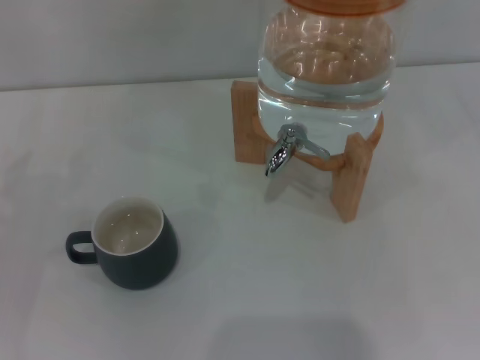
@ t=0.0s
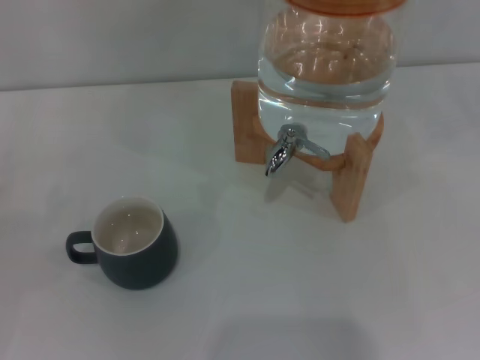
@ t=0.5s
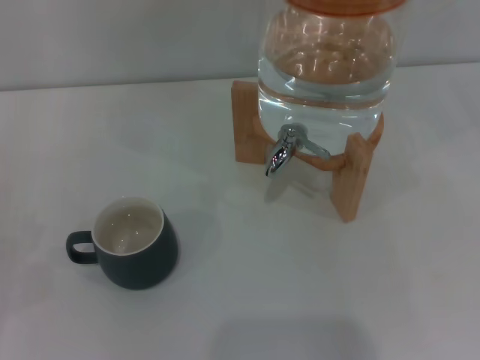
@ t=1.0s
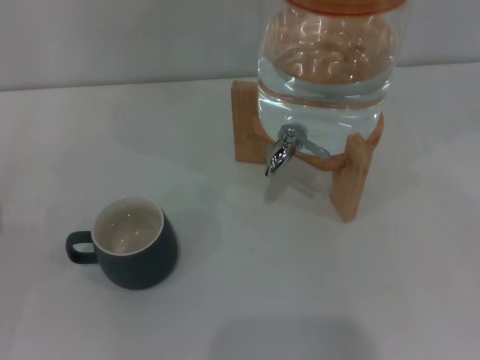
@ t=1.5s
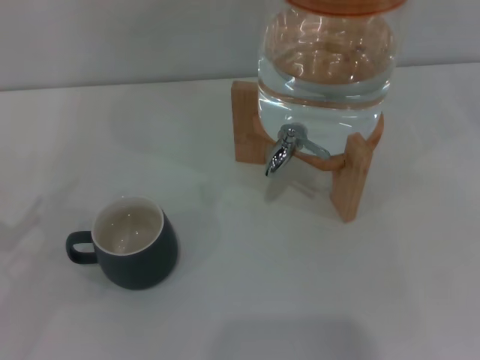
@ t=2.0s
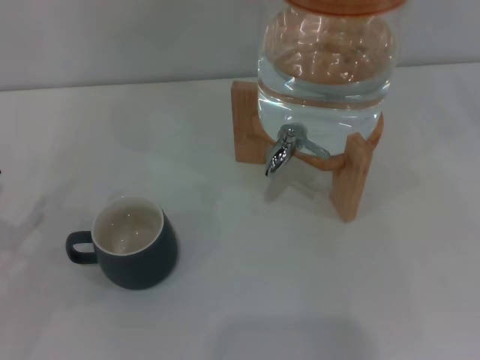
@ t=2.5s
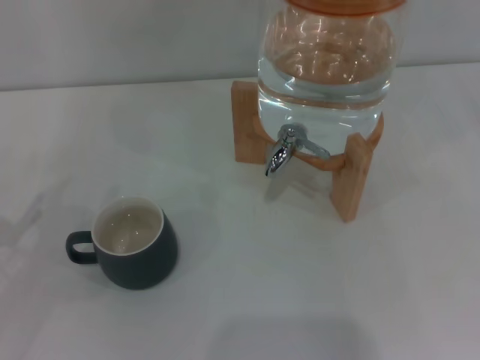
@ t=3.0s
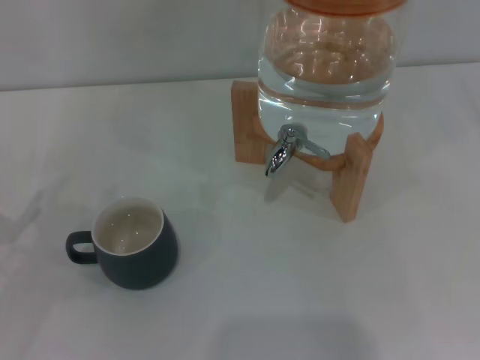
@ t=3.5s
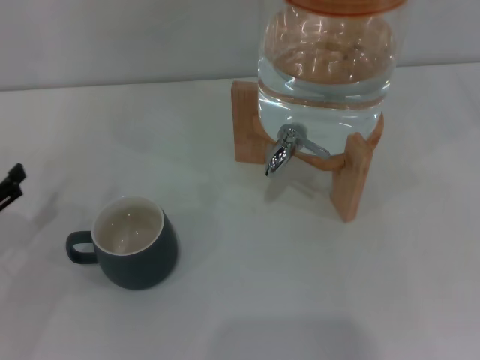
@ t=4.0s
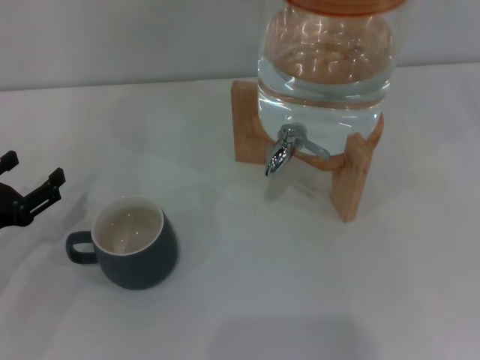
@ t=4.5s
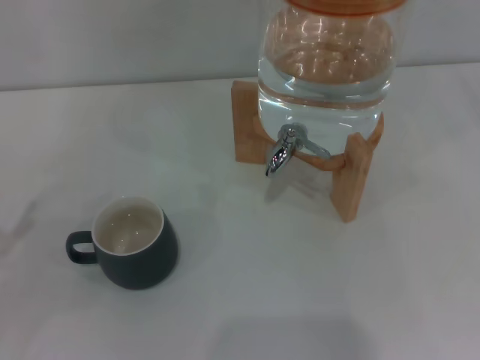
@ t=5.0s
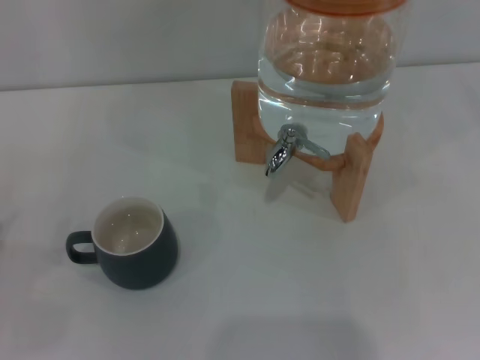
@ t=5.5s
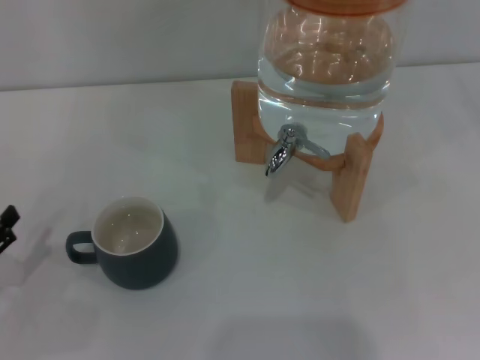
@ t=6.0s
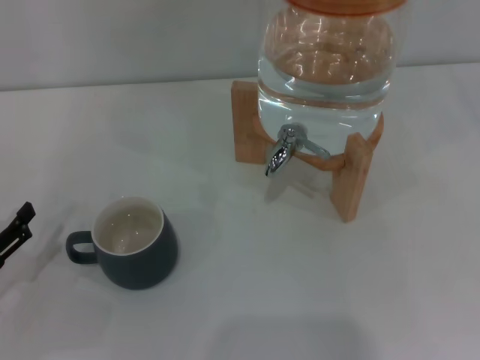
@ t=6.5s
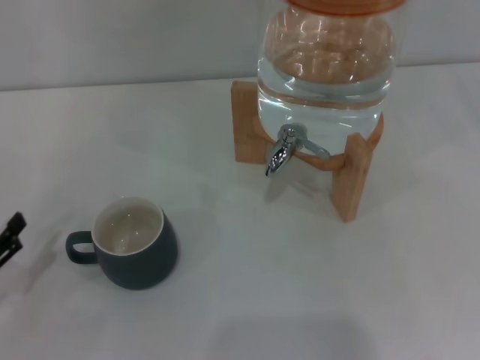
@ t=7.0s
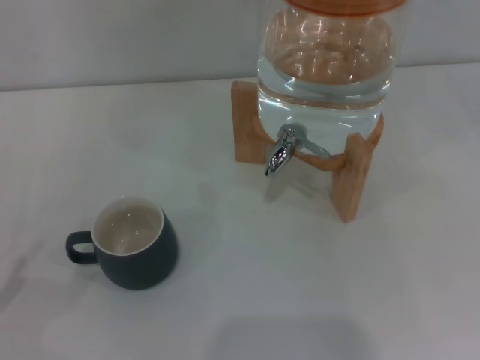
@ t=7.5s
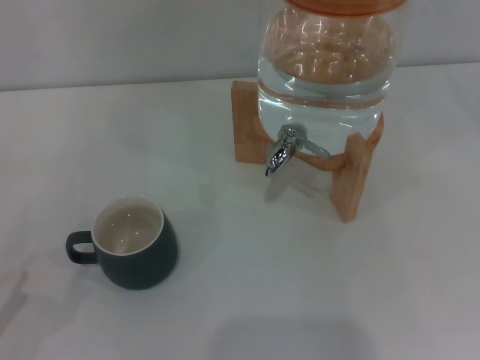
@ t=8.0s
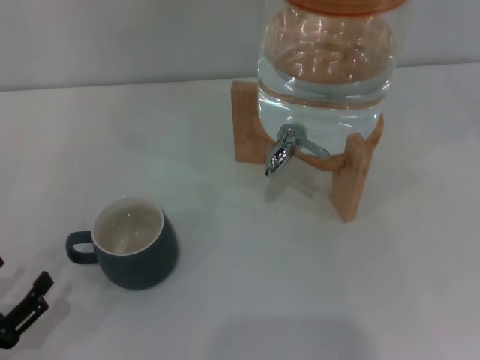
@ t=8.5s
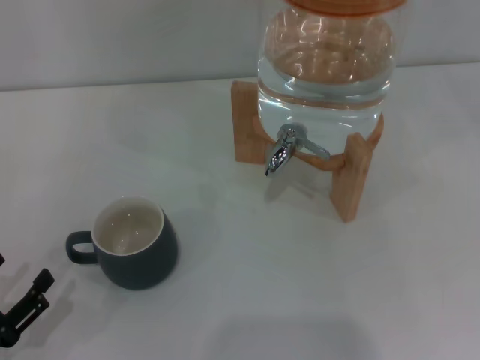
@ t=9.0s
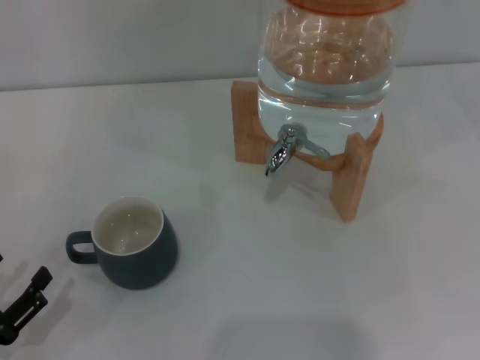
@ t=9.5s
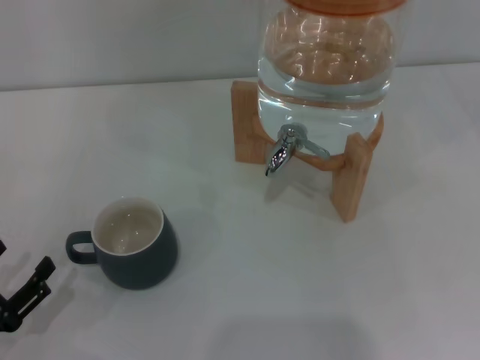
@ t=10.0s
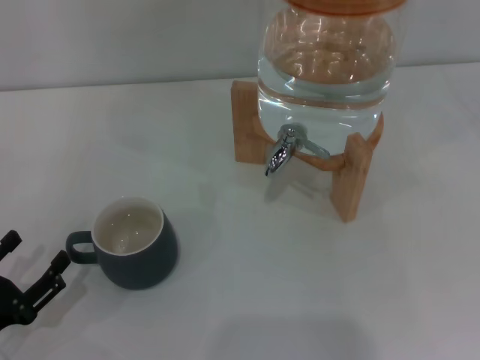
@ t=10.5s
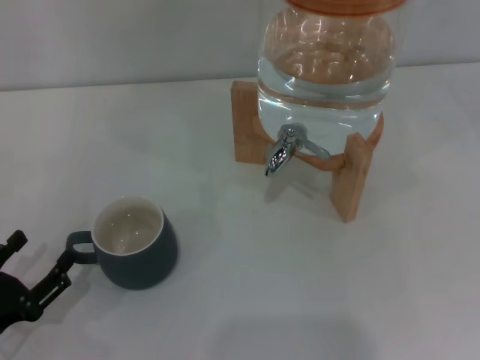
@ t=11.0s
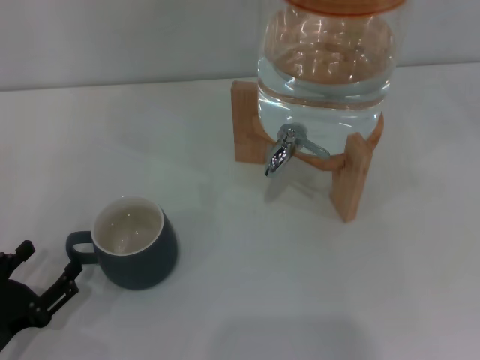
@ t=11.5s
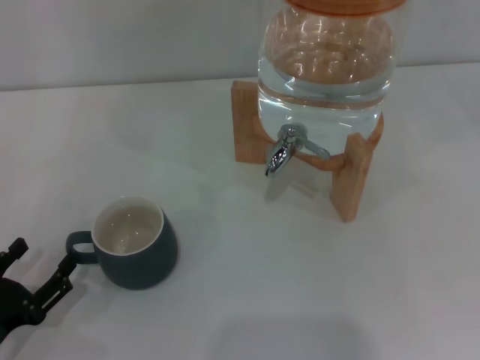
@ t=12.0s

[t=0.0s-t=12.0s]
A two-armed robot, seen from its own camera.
Task of the whole recording: the left gripper pick up the black cup and place it horizontally under the faucet, the right gripper turn on the faucet to fill the cup, and then turn off the faucet.
t=4.0s to t=6.0s: The left gripper goes roughly 5 cm backward.
t=8.0s to t=10.0s: The grippers make only small movements.
t=10.0s to t=12.0s: The grippers move only a little.

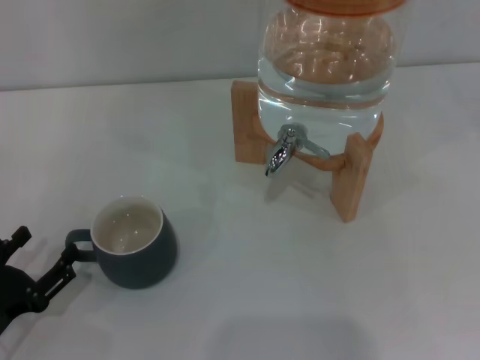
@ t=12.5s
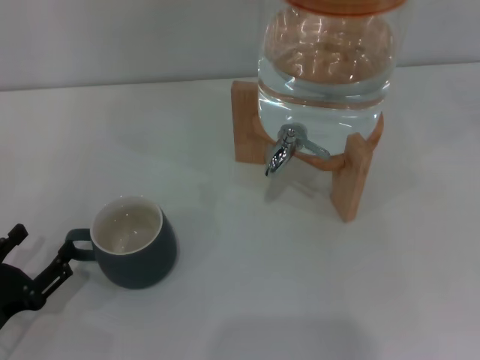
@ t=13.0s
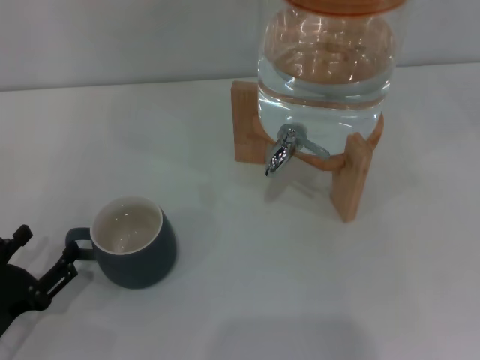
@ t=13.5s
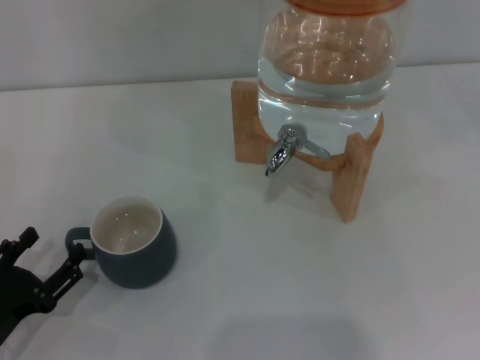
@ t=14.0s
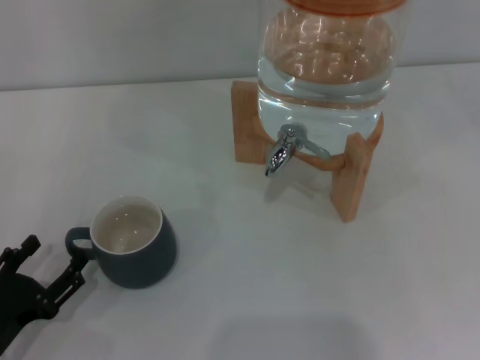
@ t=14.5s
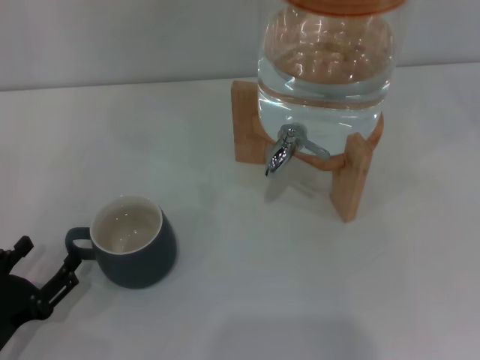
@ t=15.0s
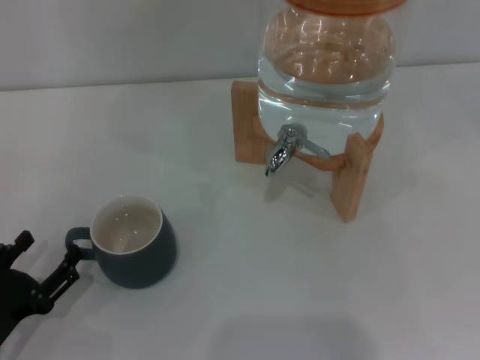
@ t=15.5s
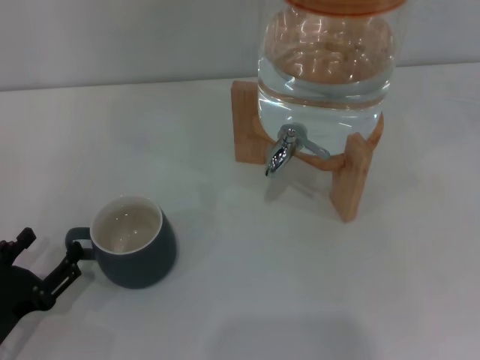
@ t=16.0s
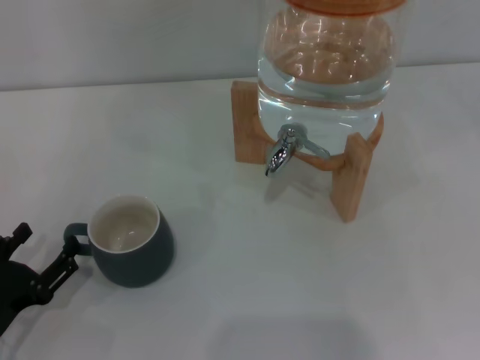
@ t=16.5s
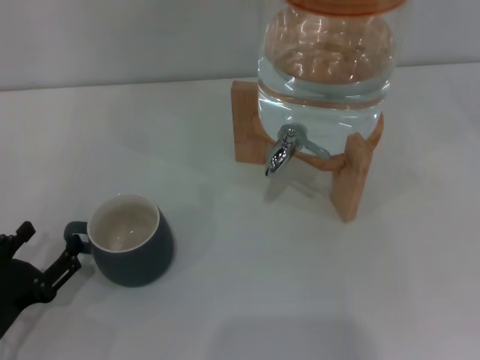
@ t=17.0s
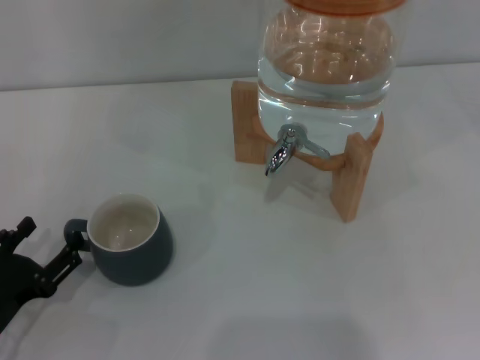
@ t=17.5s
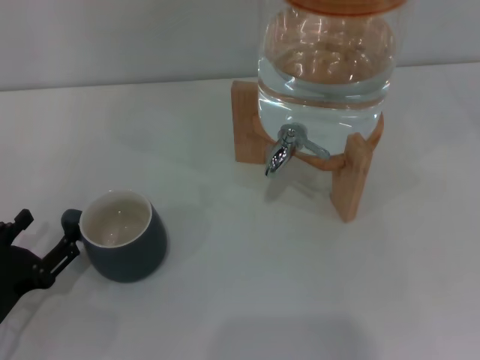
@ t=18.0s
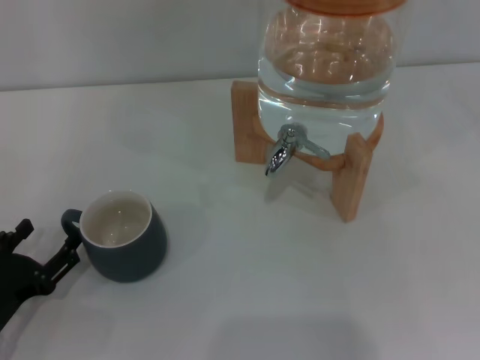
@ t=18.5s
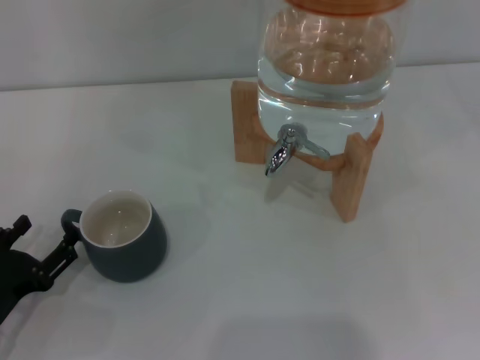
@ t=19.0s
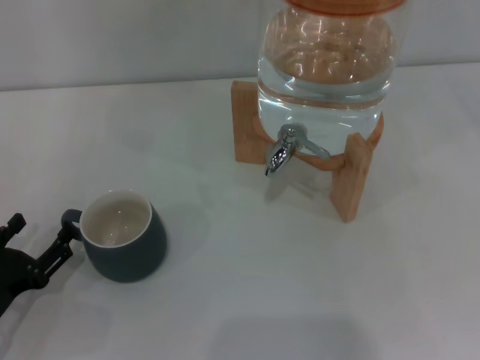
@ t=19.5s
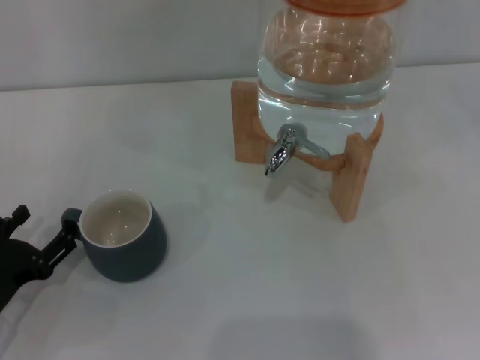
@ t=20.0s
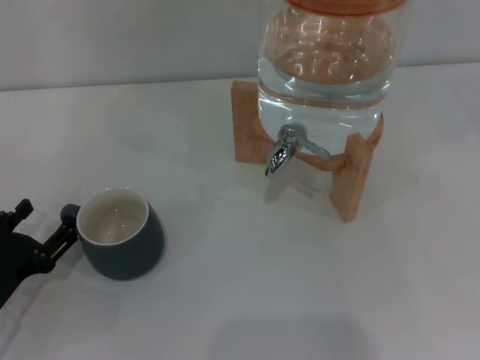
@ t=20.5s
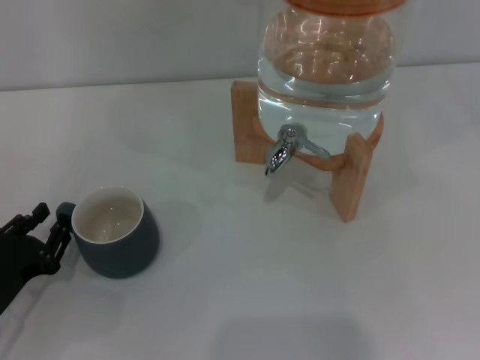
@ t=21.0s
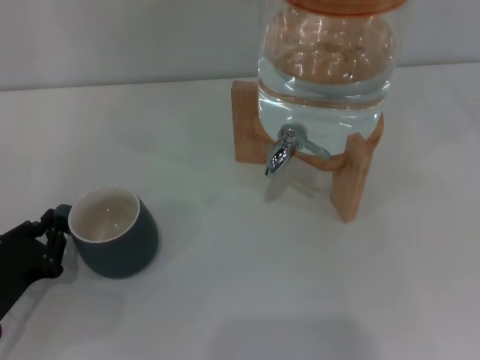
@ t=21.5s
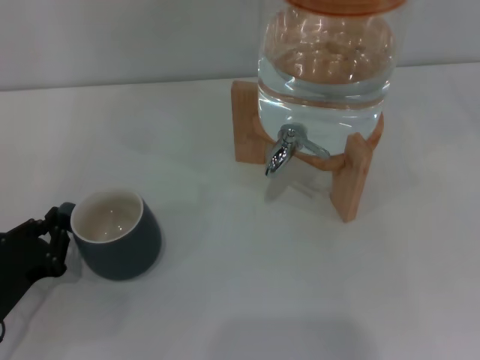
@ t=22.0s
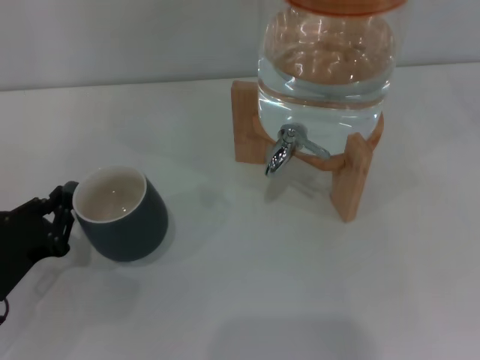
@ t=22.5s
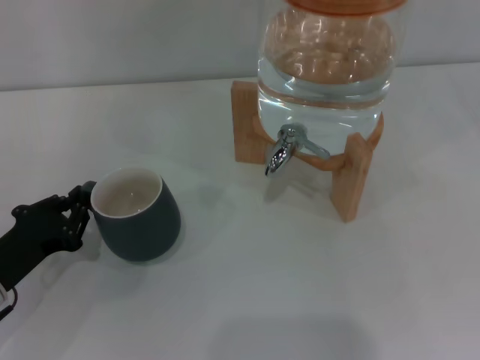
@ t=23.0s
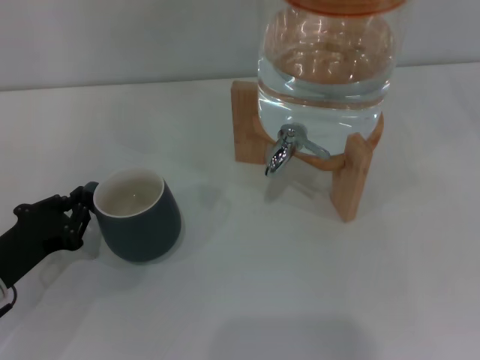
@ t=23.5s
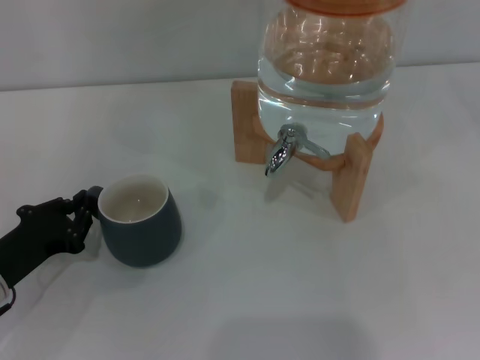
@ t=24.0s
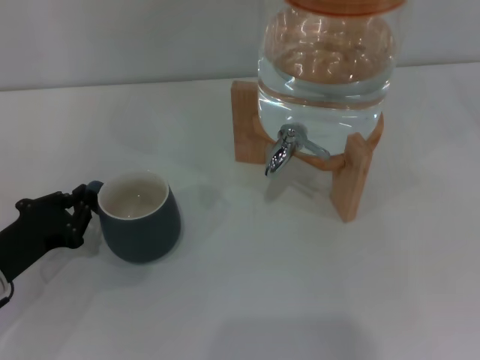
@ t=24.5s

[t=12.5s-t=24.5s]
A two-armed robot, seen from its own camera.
Task of the whole recording: the left gripper pick up the black cup and place it horizontally under the faucet, the right gripper turn on the faucet to fill the cup, and then turn off the faucet.
t=12.5s to t=16.5s: The two grippers keep their place.
t=16.5s to t=20.5s: There are only small adjustments of the grippers.
t=20.5s to t=22.5s: The left gripper closes its fingers.
t=22.5s to t=24.5s: The grippers move only a little.

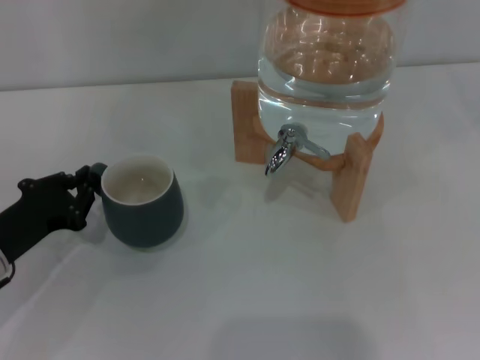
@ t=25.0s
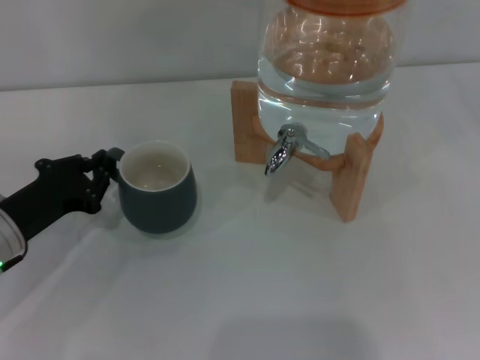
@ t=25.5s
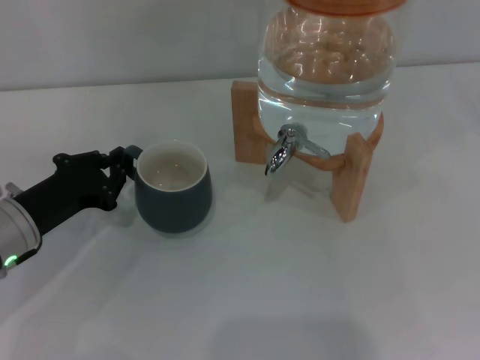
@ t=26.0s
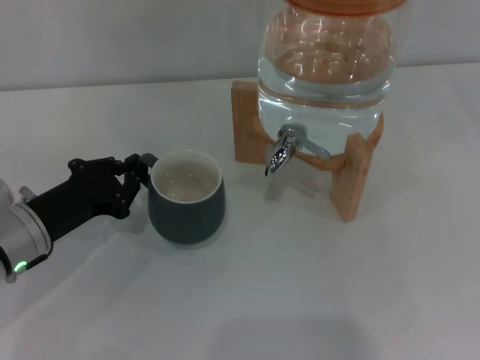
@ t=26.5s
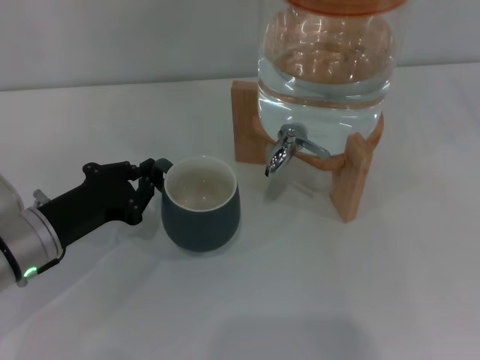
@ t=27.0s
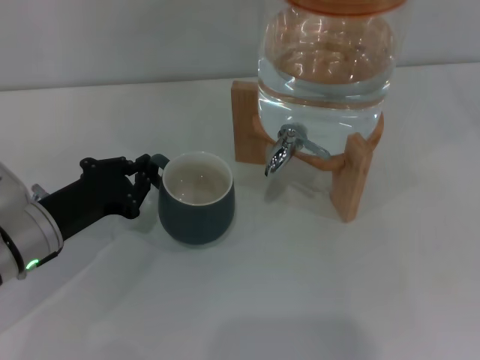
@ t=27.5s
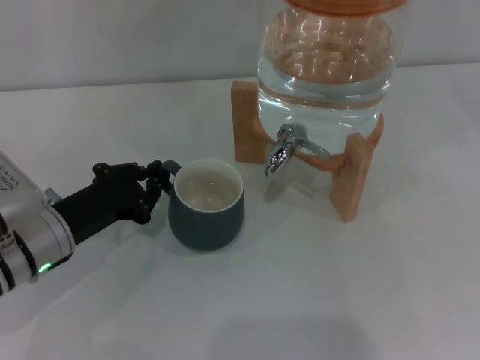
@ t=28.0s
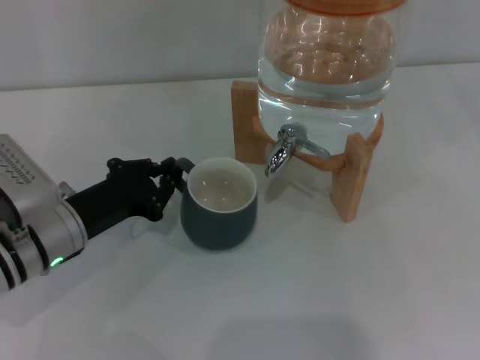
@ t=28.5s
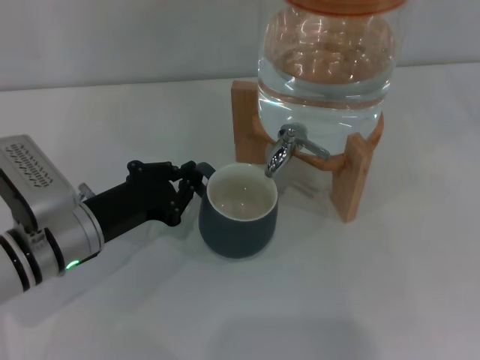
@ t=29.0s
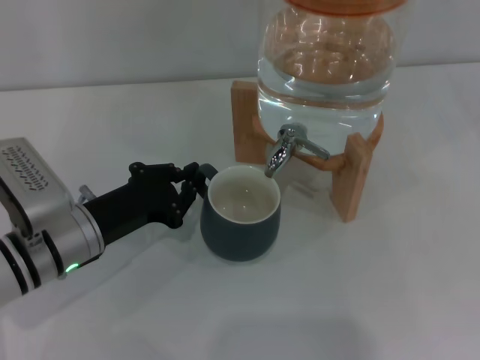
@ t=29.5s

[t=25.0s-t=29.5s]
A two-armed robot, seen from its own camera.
Task of the whole recording: the left gripper pick up the black cup and place it horizontally under the faucet, the right gripper turn on the faucet to fill the cup, and then turn off the faucet.
t=25.0s to t=27.0s: The left gripper moves approximately 5 cm.
t=27.0s to t=29.5s: The grippers move only a little.
